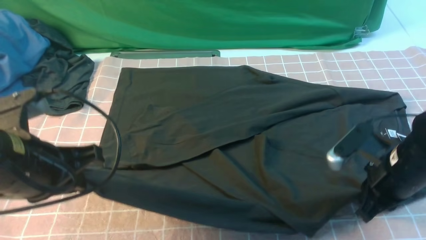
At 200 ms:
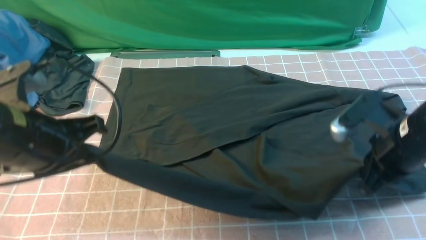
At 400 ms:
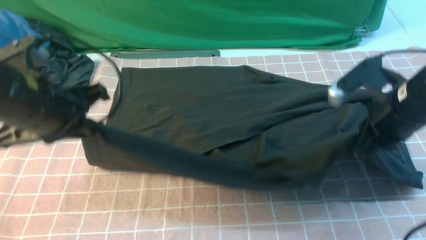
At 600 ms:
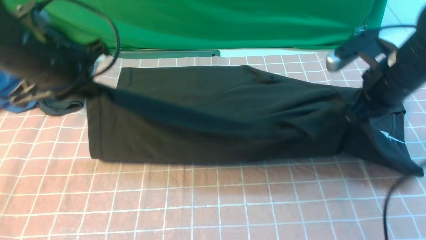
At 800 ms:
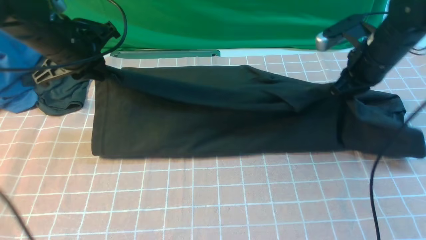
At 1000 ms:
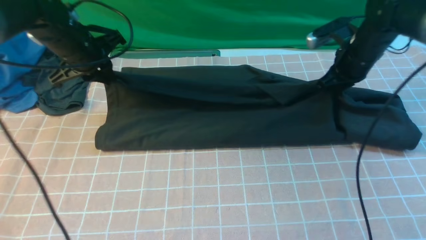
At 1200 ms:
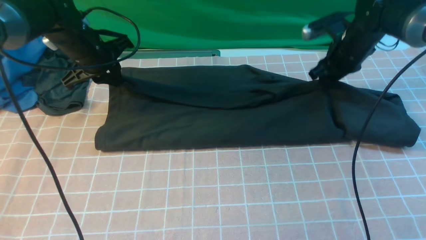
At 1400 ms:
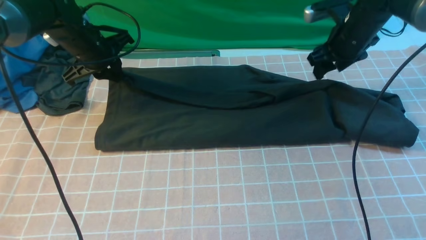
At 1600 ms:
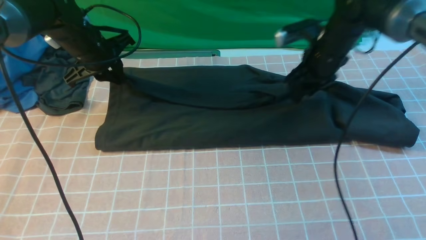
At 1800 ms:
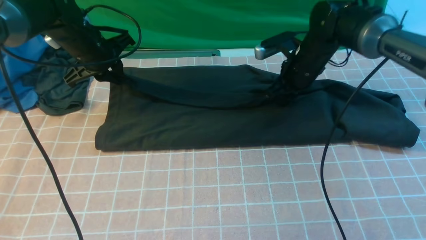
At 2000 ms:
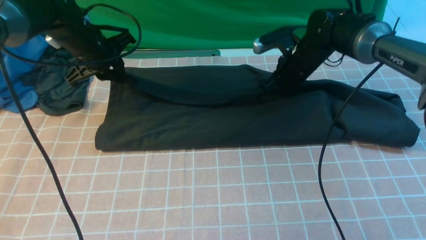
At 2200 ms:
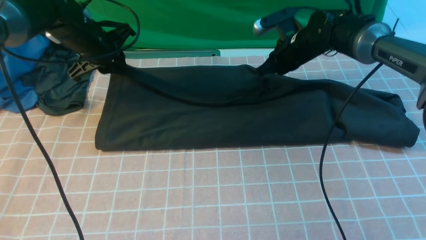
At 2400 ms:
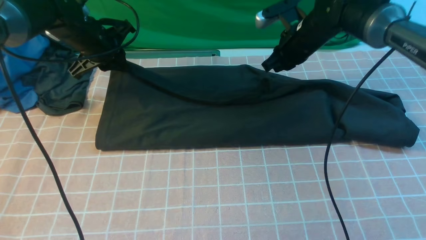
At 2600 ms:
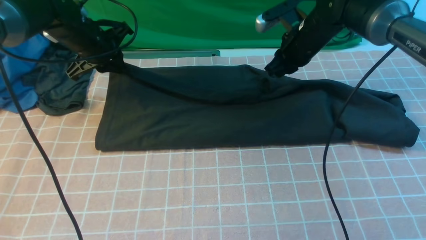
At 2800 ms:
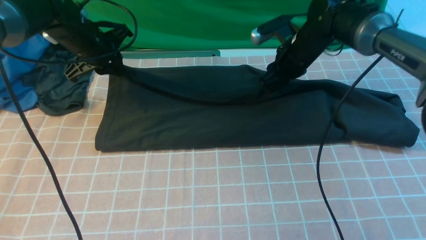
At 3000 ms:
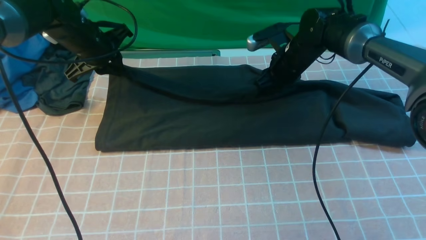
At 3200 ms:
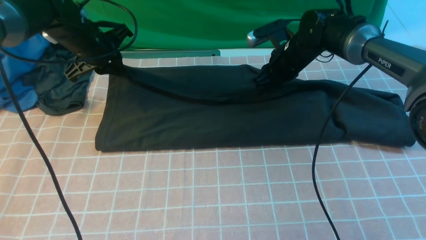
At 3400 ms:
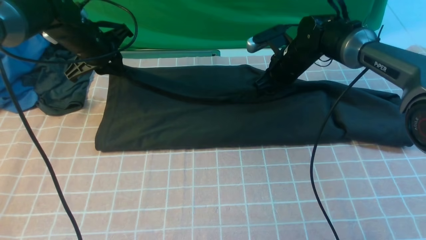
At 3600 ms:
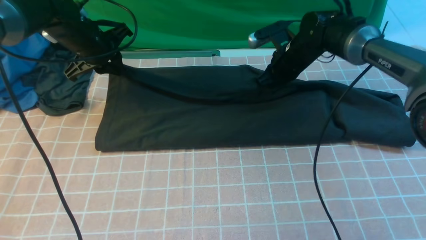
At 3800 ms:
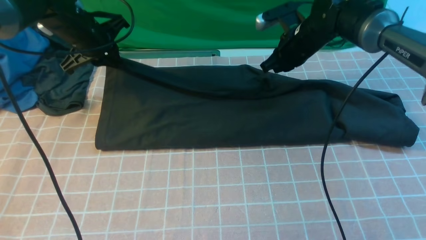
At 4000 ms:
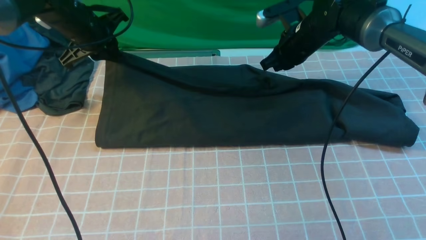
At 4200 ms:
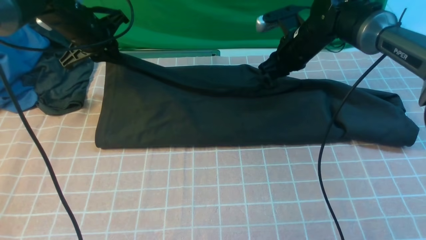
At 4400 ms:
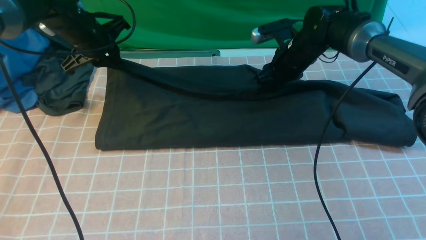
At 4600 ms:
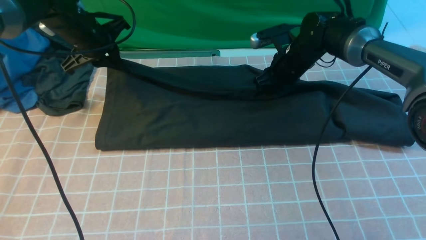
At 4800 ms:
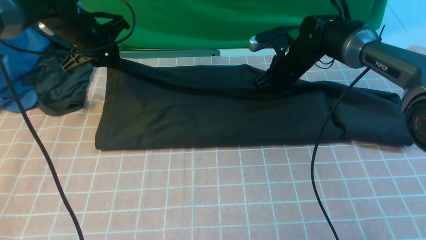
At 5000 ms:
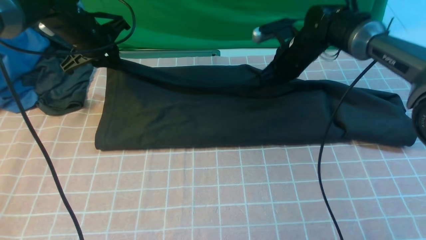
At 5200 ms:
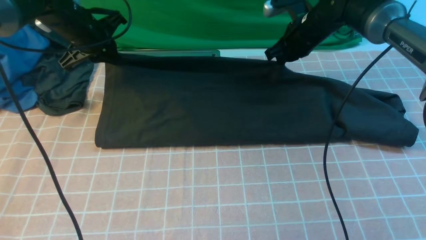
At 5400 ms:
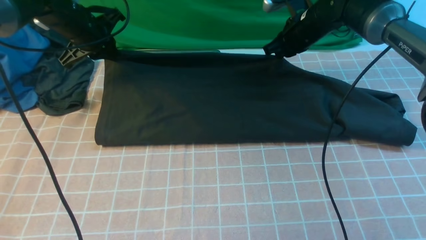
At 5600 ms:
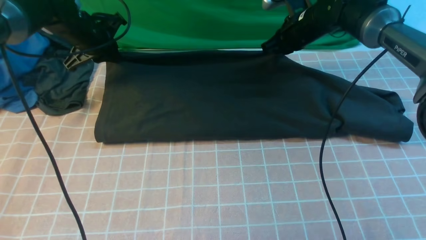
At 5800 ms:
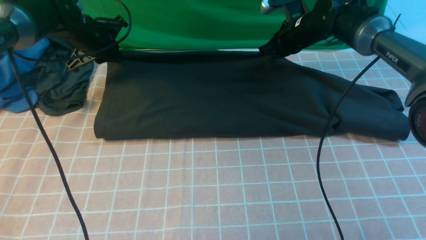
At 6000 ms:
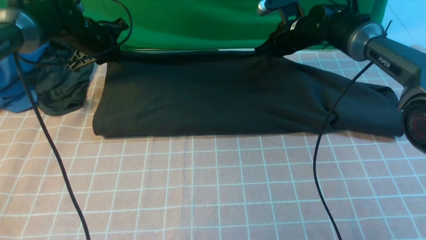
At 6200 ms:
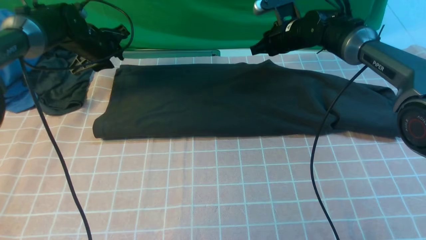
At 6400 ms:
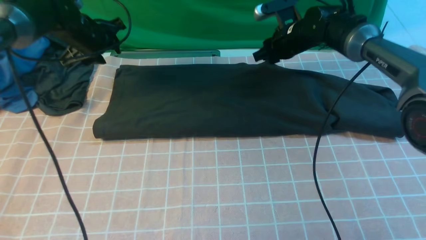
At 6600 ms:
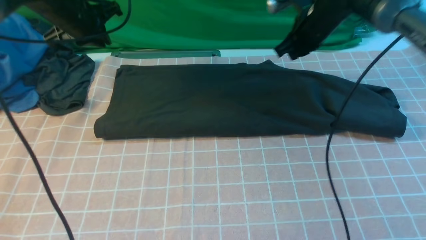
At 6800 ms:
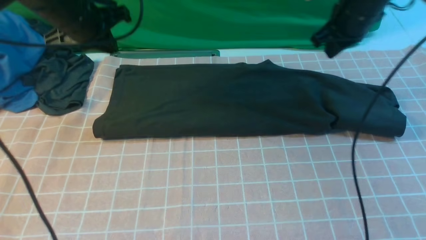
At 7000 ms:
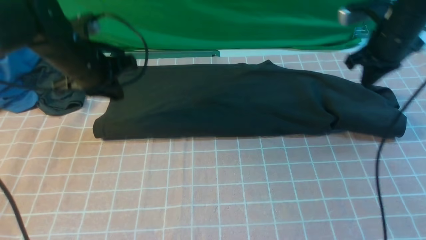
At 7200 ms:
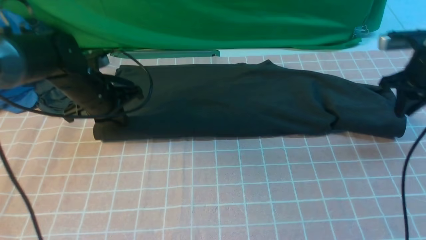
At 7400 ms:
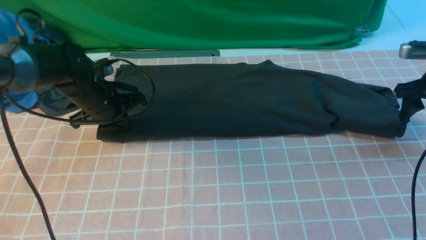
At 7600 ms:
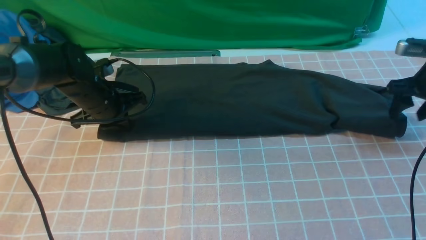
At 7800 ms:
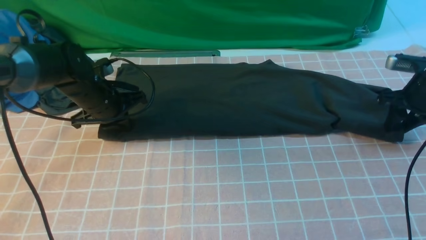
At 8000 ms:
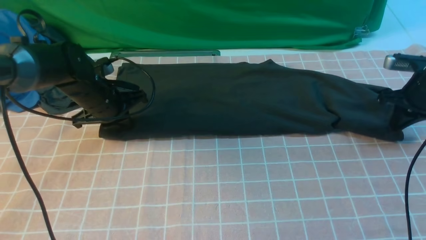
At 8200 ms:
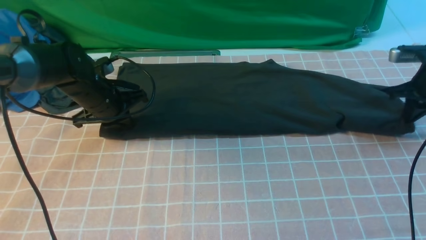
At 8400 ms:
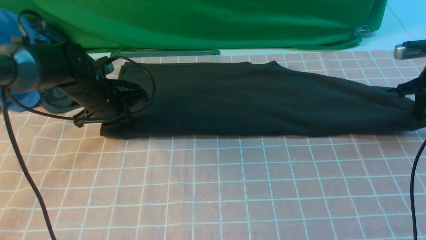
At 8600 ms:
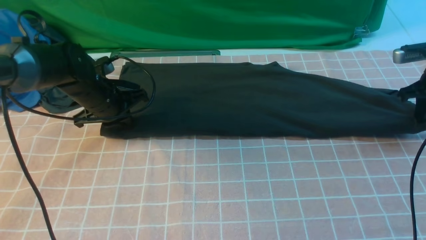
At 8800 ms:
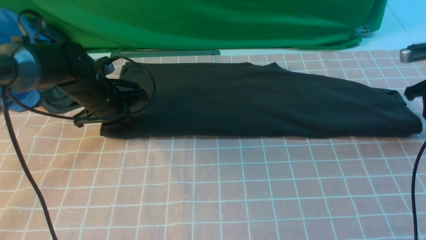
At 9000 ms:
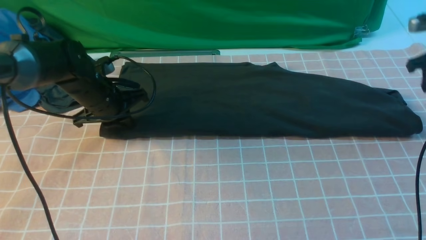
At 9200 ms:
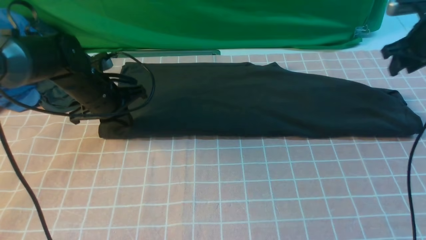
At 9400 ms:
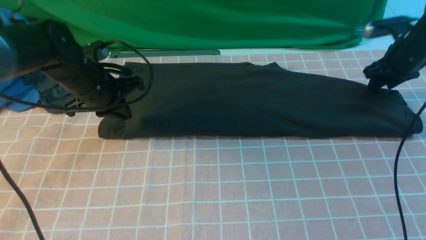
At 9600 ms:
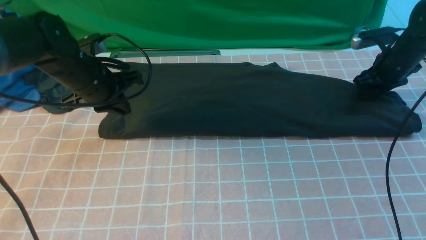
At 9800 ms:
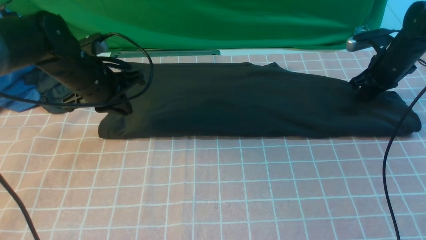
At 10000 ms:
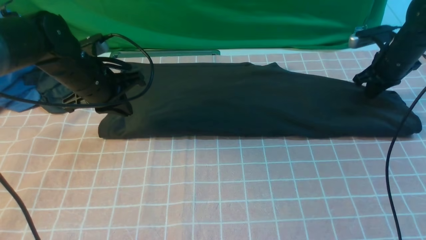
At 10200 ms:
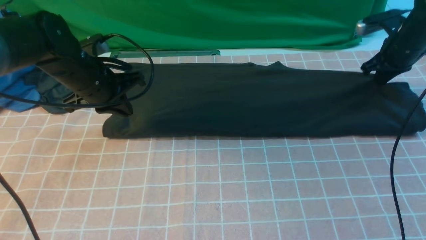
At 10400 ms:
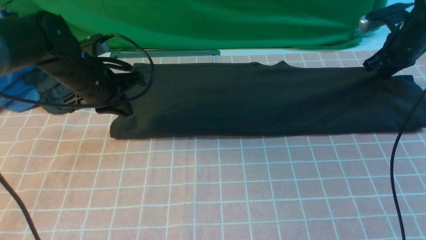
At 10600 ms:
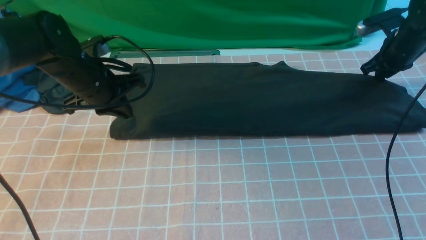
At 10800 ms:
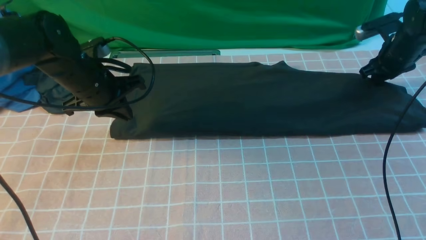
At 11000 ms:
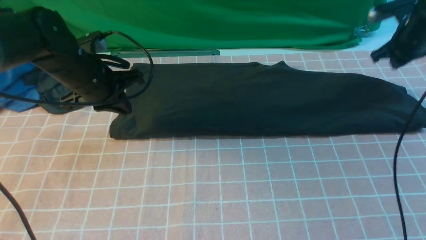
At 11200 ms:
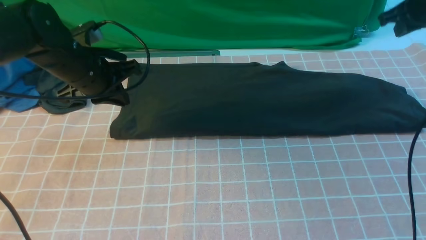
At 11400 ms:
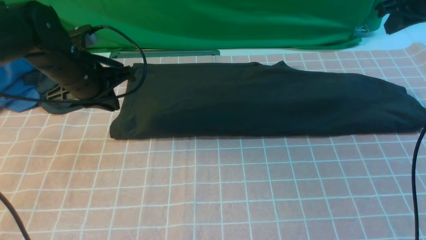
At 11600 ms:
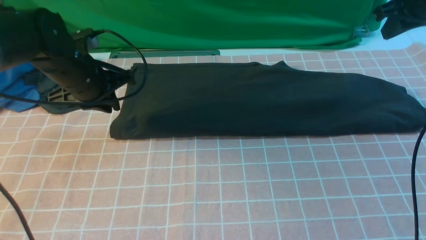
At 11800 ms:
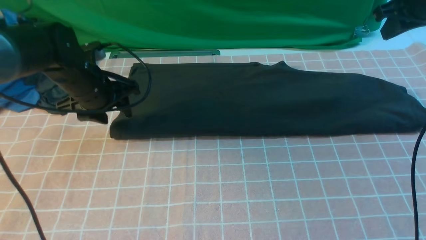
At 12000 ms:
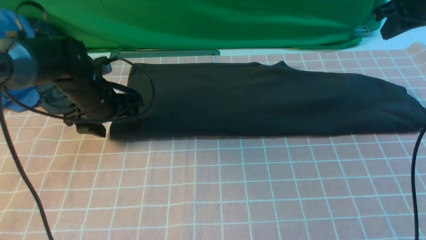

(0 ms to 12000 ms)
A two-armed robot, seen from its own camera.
Step, 0 ms - 6000 ms: use both arms to drag the lower edge of the fabric forward and fold it over the upper edge.
0 ms - 1600 ms: The grippers both shift forward by approximately 25 cm. The right gripper opens up.
1600 ms - 3000 ms: The right gripper moves some 5 cm, and closes and opens again.
3000 ms - 4400 ms: The right gripper closes, then opens again.
4400 ms - 6000 ms: The left gripper shifts by roughly 5 cm. The right gripper closes its fingers.
6000 ms - 7600 ms: The left gripper heads backward and downward, covering about 10 cm. The right gripper travels to the right and backward by roughly 25 cm, and opens up.
7600 ms - 9000 ms: The right gripper shifts by about 5 cm, and closes, then opens again.
9000 ms - 10400 ms: The right gripper shifts by some 5 cm, and closes its fingers. The left gripper travels upward by some 5 cm.
10400 ms - 12000 ms: The right gripper shifts roughly 10 cm upward. Meanwhile the left gripper shifts by some 5 cm, and opens.

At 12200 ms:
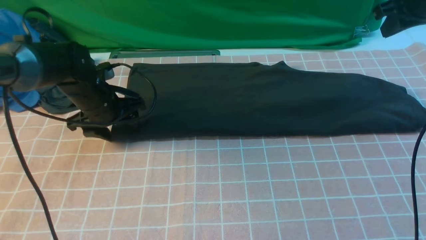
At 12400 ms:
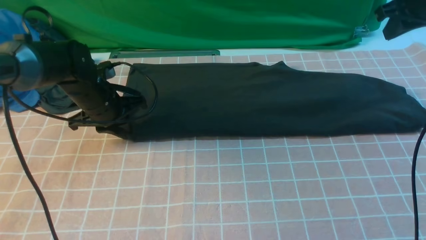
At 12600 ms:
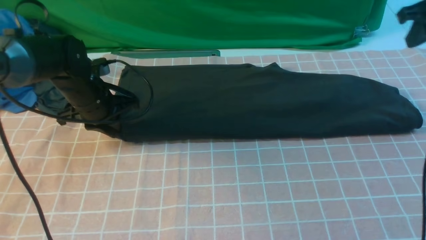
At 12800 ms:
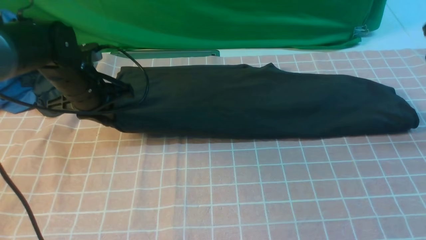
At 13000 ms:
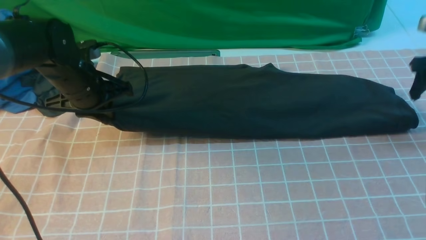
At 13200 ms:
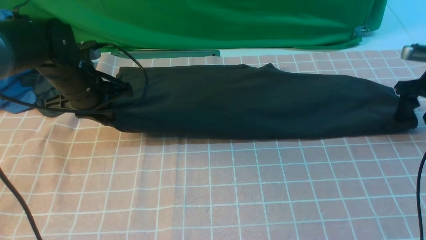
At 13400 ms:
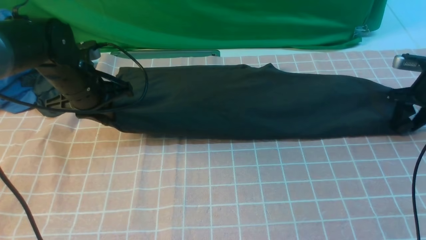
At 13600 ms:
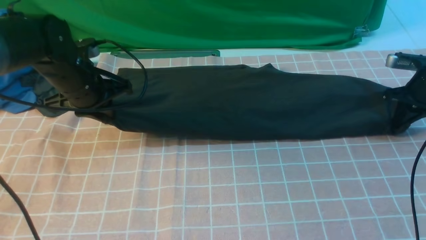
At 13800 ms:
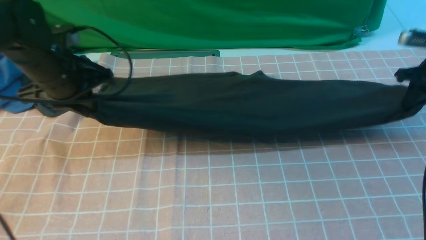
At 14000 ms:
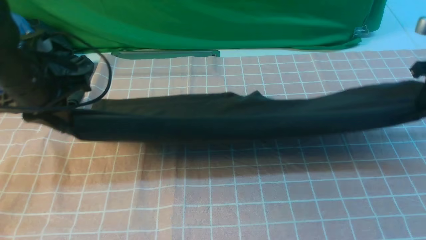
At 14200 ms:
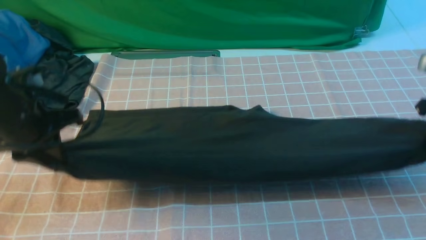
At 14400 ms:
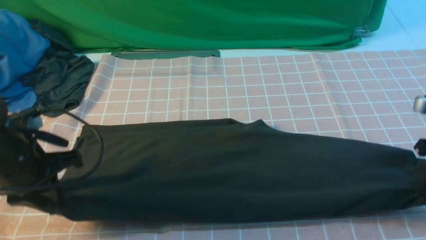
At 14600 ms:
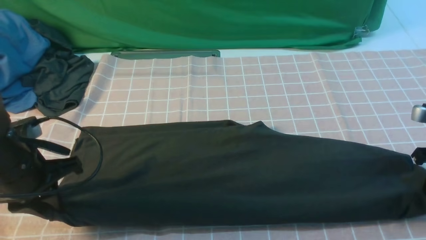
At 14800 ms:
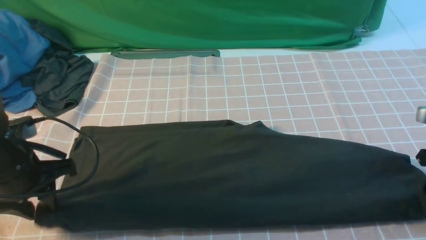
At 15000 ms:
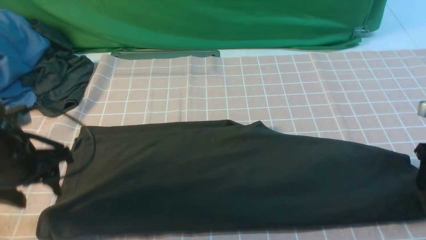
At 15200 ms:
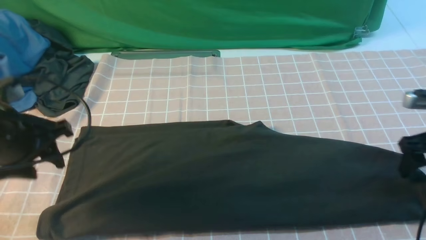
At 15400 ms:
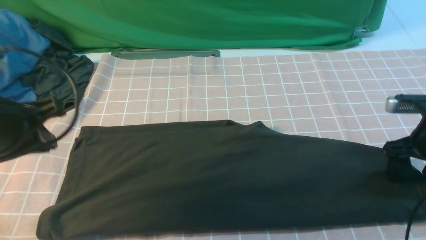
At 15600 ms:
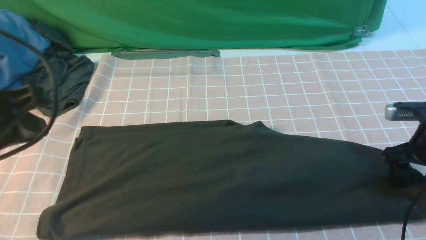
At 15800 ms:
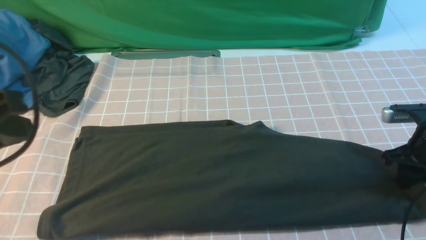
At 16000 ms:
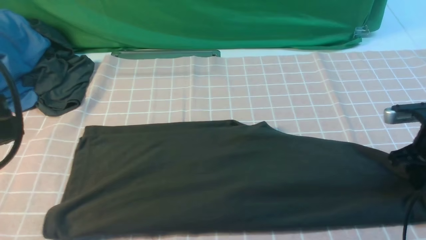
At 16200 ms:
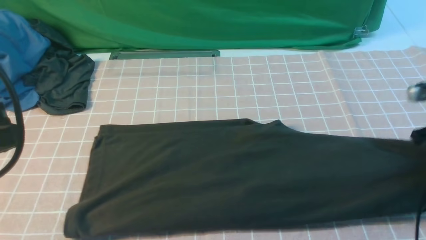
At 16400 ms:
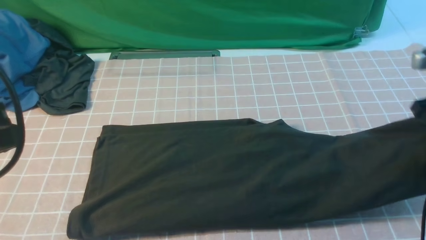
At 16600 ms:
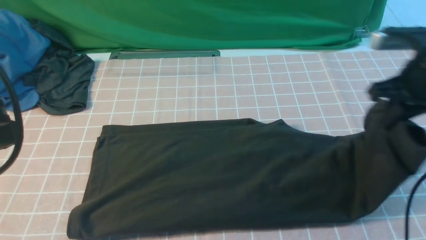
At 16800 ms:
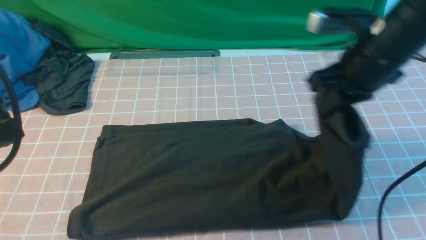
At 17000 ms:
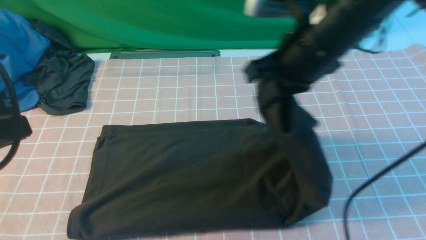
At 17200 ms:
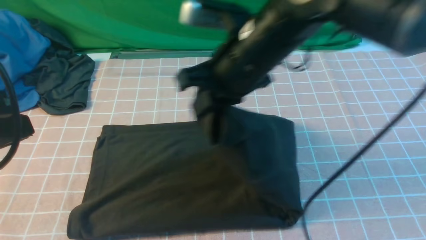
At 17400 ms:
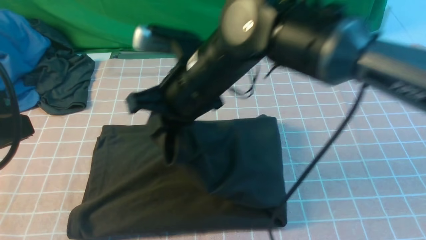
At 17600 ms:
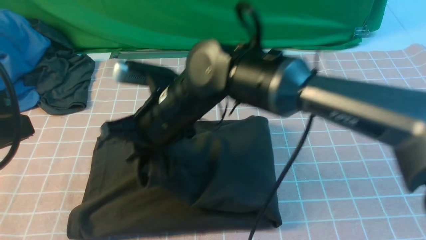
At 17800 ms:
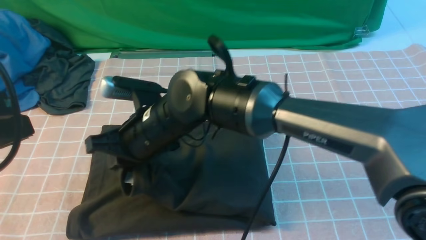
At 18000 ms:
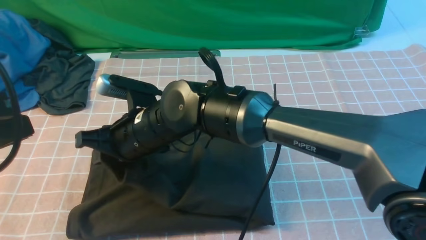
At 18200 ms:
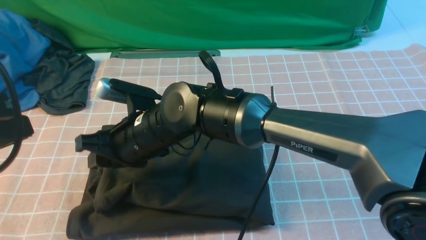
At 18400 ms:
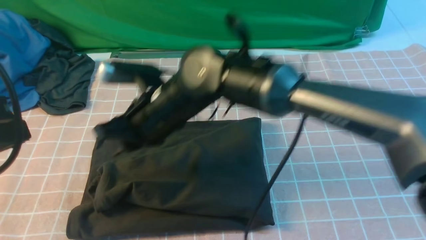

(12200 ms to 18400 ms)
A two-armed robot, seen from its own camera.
Step, 12200 ms - 15800 ms: use the right arm to clamp the right edge of the fabric.
Step, 16000 ms - 18200 ms: use the right arm to drag the right edge of the fabric to the left and folds it over the left edge.
12200 ms - 13800 ms: The right gripper shifts approximately 10 cm downward and to the right, and opens, then closes once more; the left gripper shifts about 10 cm upward, and closes its fingers.
13800 ms - 15400 ms: The right gripper shifts roughly 10 cm backward, downward and to the left, and opens up. The left gripper moves backward, some 15 cm, and opens and closes again.
15400 ms - 16800 ms: The right gripper moves to the left and upward, roughly 25 cm, and closes, while the left gripper travels backward and upward by approximately 10 cm.
16800 ms - 18400 ms: The right gripper moves to the left, approximately 25 cm.
